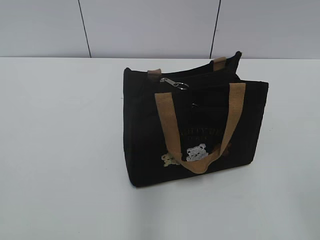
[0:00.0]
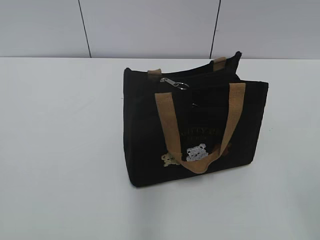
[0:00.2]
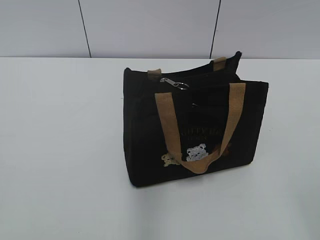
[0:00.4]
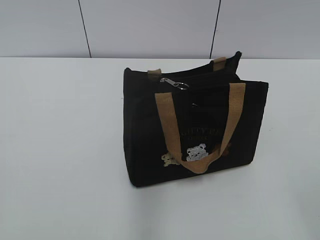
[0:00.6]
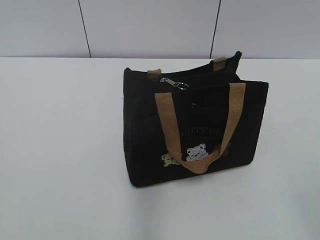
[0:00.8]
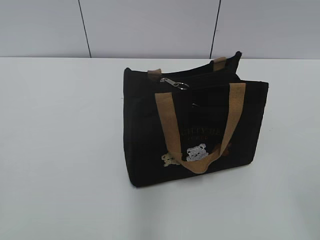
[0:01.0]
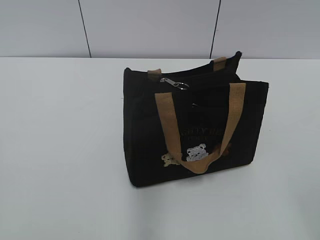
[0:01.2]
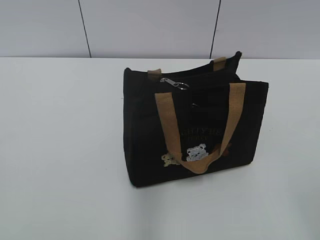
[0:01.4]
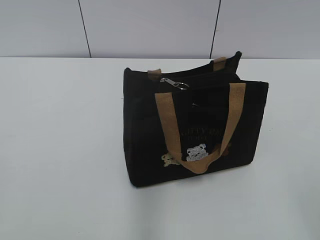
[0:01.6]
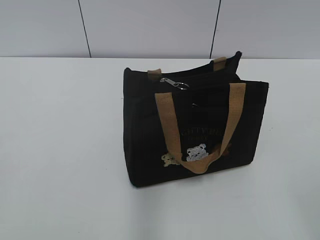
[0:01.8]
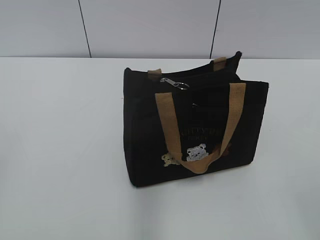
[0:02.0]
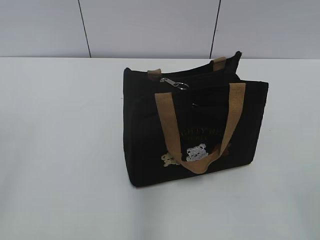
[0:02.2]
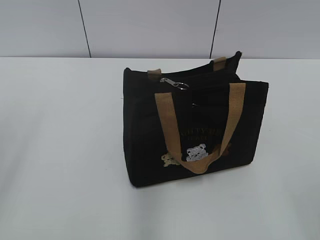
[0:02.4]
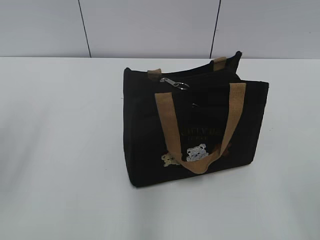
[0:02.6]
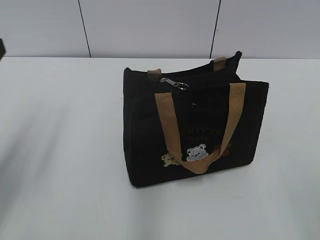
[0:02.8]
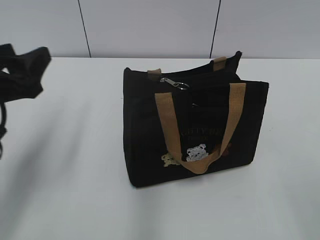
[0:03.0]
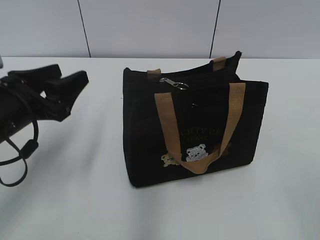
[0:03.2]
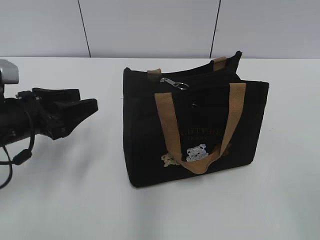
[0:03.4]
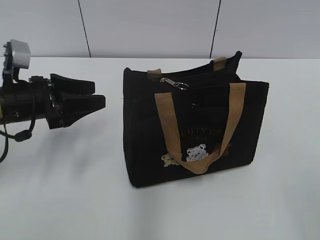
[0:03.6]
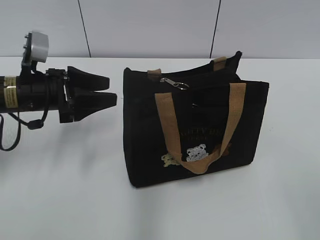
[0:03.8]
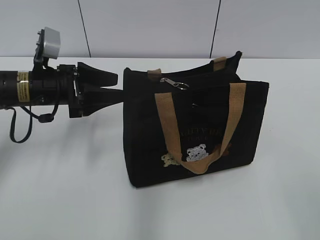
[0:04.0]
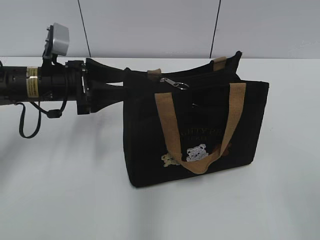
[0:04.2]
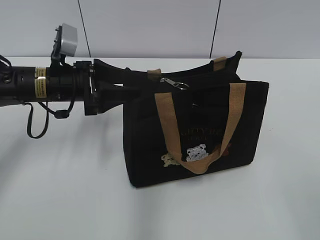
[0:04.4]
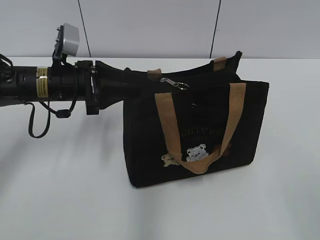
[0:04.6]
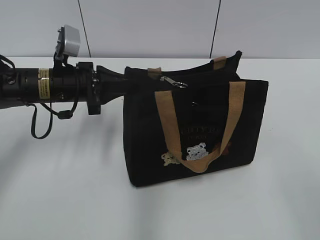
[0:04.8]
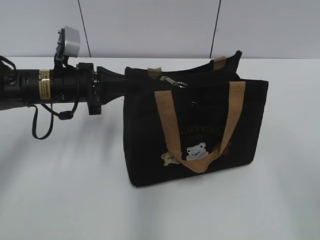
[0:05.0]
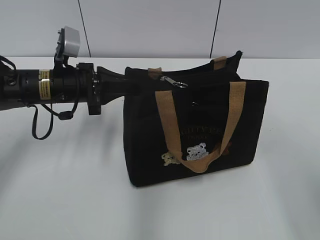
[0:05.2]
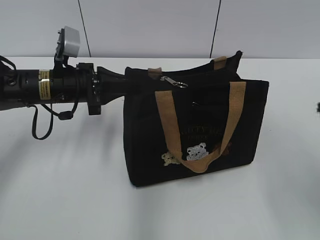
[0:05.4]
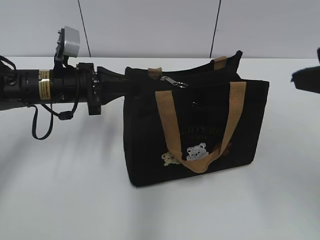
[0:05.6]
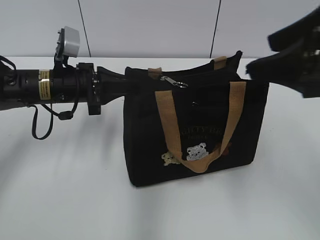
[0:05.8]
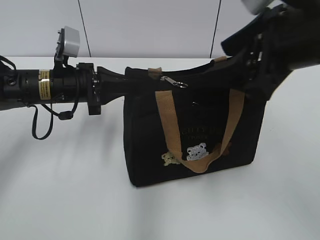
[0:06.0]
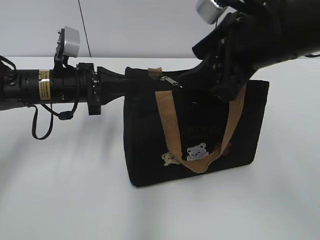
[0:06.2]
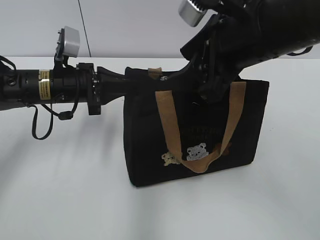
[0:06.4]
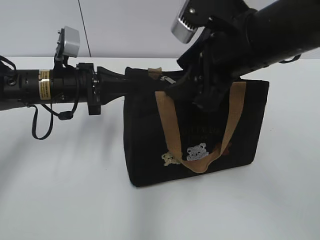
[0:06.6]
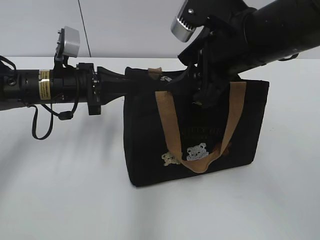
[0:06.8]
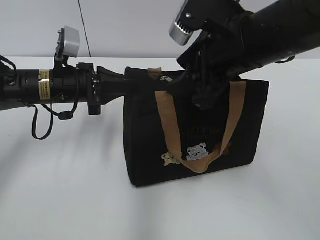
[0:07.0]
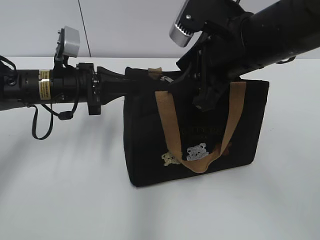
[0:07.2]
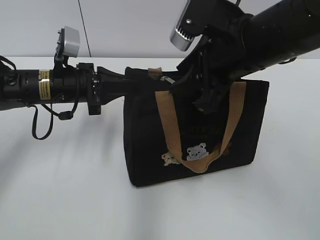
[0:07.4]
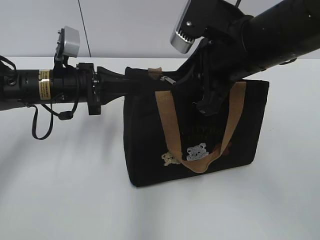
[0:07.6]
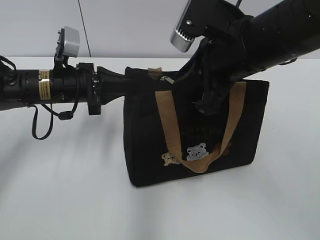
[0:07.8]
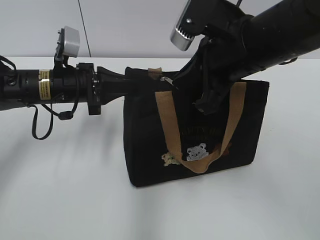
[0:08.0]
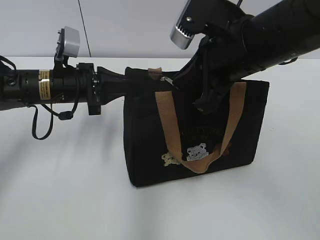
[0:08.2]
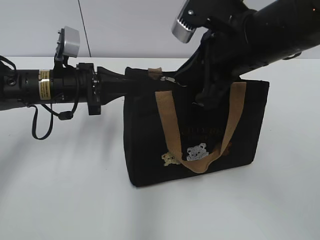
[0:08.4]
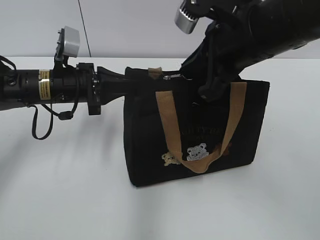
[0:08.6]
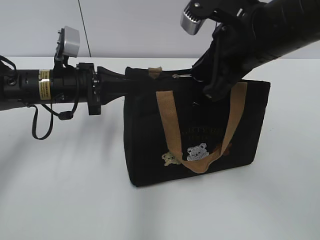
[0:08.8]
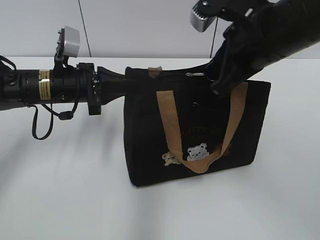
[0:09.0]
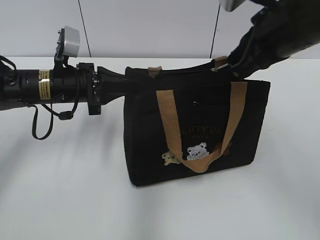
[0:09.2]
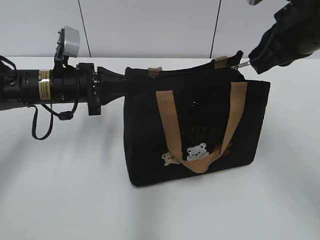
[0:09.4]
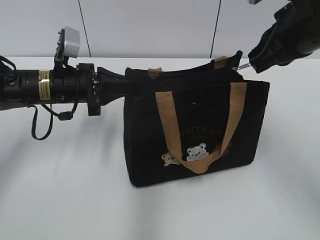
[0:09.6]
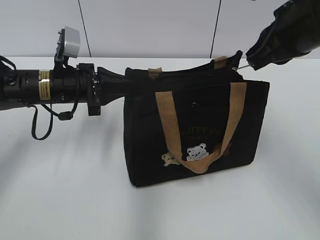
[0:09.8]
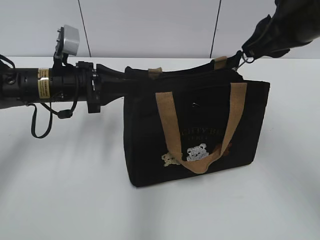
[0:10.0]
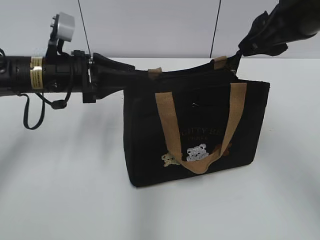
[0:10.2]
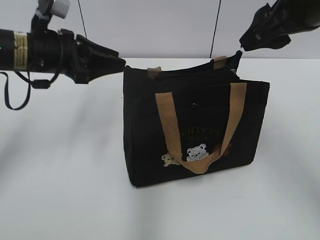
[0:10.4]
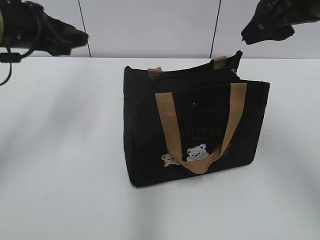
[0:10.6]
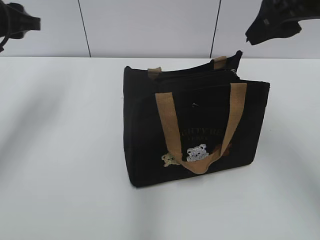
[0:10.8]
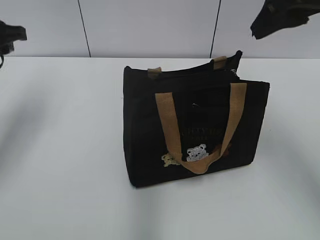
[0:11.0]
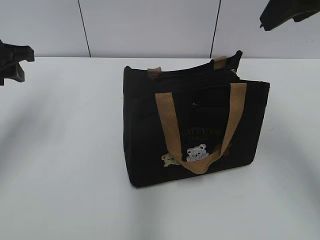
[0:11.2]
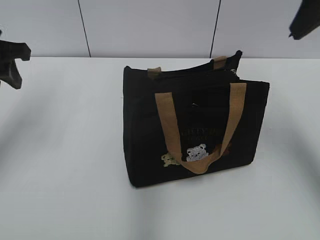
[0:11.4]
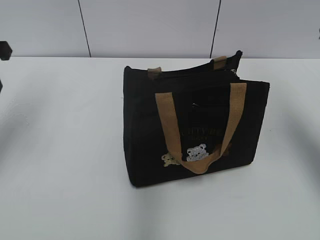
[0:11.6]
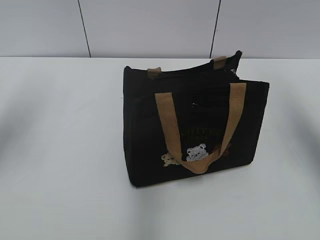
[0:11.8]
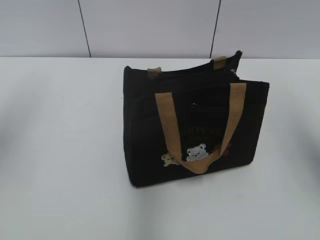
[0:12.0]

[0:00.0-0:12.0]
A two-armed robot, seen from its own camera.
Step, 0.0 to 10.0 s: Pull open the zipper with your right hand.
1.6 to 3.0 s: The left gripper shifts about 20 cm forward.
3.0 to 4.4 s: The left gripper shifts roughly 15 cm forward, downward and to the right.
4.4 to 6.0 s: The right gripper moves forward and to the left, about 25 cm, while the left gripper closes.
6.0 to 7.6 s: The right gripper shifts about 5 cm to the left, and closes up.
7.6 to 9.0 s: The right gripper closes.
9.0 to 10.4 s: The left gripper travels upward by about 5 cm, and opens. Meanwhile the right gripper shifts about 5 cm to the right, and opens.
10.4 to 12.0 s: The left gripper moves upward, to the left and backward, about 20 cm, while the right gripper travels to the right and backward by about 10 cm.

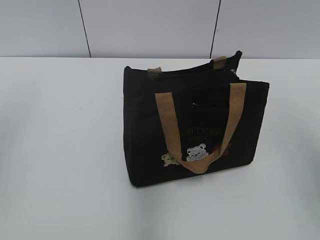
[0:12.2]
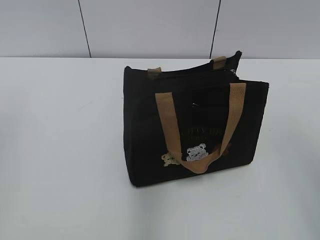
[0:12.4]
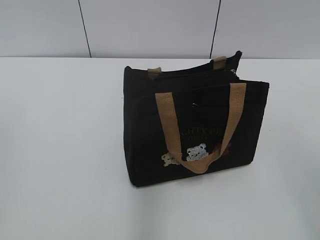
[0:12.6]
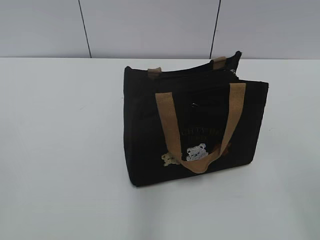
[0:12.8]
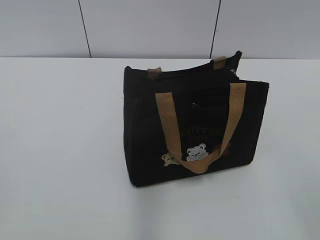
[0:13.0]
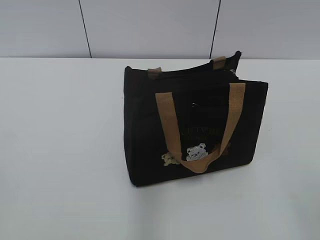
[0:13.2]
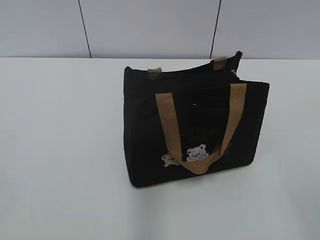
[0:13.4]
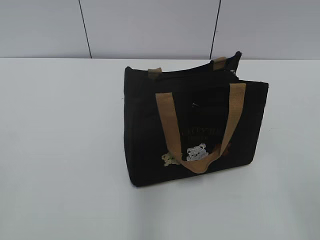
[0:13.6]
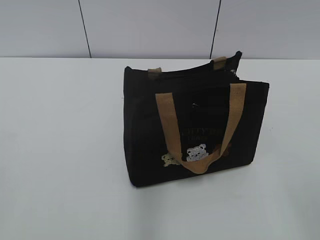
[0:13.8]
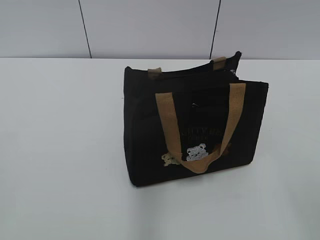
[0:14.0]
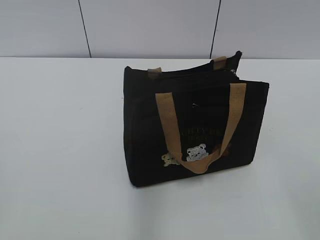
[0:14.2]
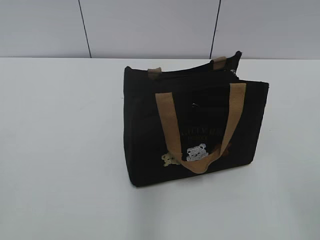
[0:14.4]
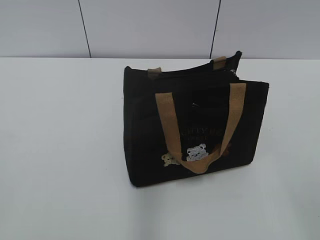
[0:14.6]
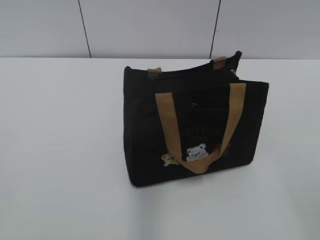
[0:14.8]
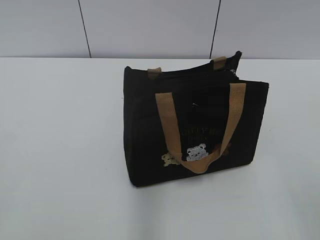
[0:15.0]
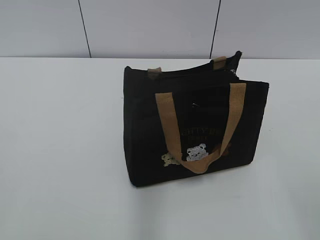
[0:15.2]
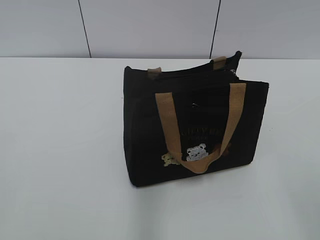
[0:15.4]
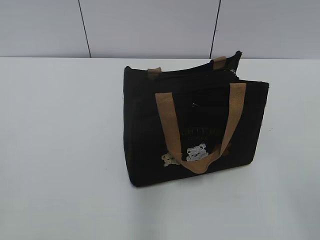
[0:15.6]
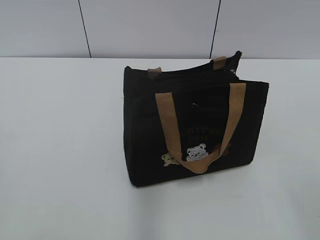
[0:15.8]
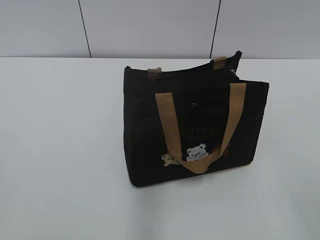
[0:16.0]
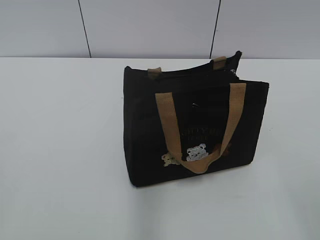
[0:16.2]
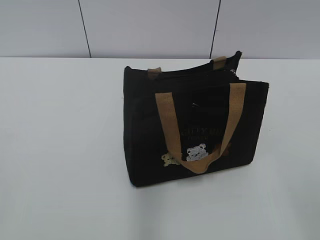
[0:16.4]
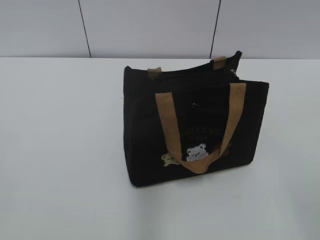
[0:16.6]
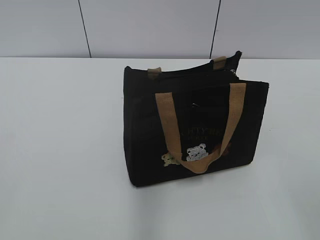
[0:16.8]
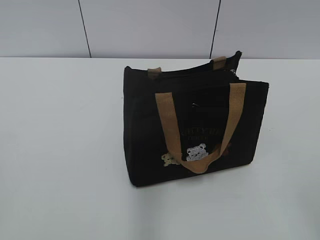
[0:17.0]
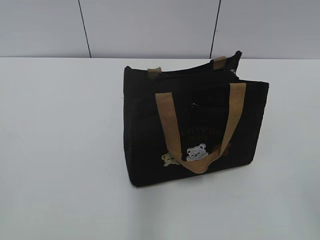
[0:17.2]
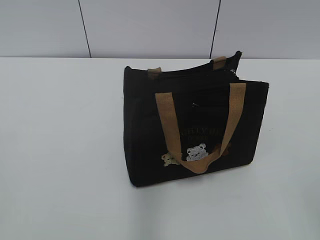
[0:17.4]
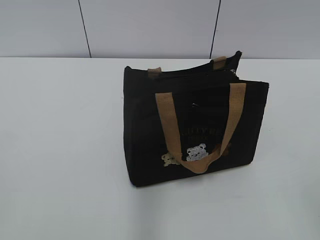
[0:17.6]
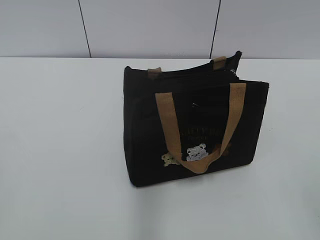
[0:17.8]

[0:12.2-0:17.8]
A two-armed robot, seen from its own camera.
12.2 to 13.6 s: The right gripper is displaced backward and downward by roughly 20 cm; the left gripper goes about 20 cm backward.
15.0 to 16.4 s: Neither gripper changes place.

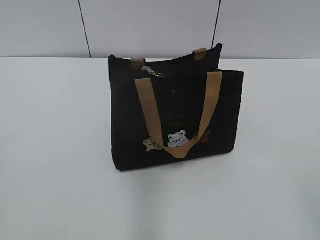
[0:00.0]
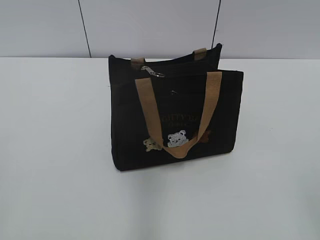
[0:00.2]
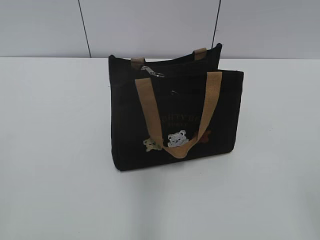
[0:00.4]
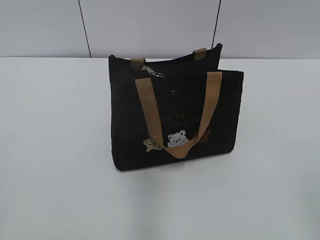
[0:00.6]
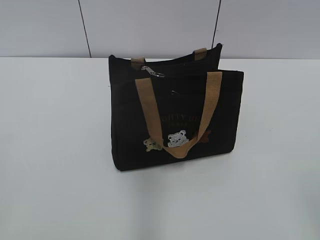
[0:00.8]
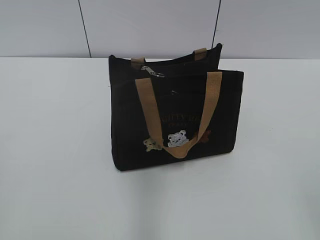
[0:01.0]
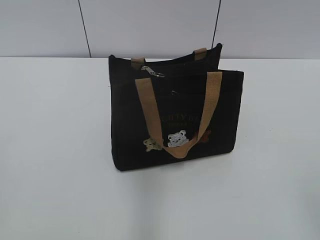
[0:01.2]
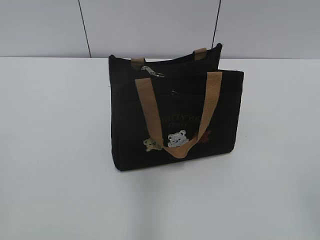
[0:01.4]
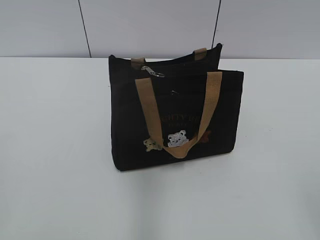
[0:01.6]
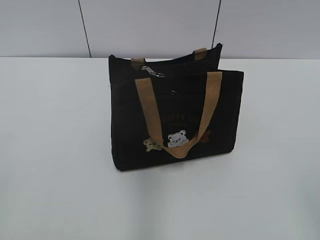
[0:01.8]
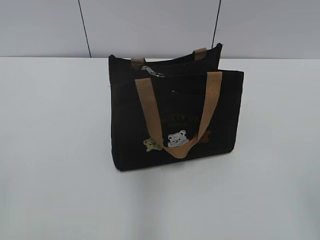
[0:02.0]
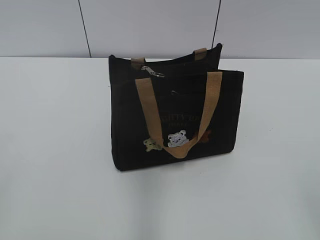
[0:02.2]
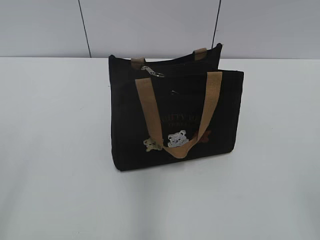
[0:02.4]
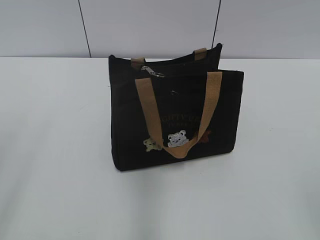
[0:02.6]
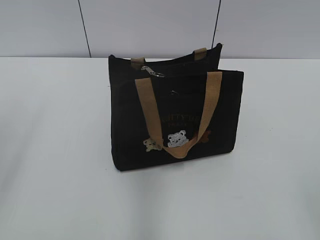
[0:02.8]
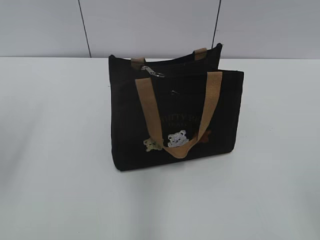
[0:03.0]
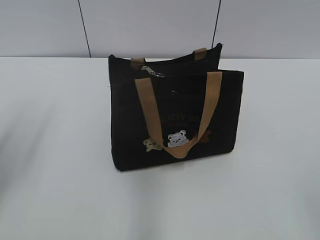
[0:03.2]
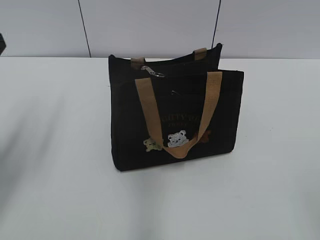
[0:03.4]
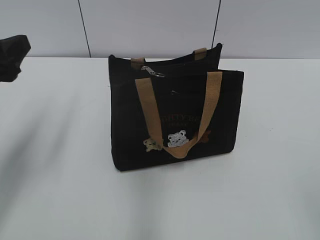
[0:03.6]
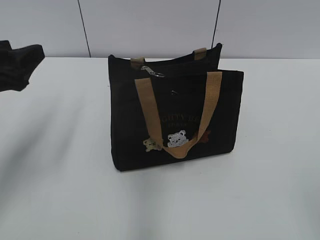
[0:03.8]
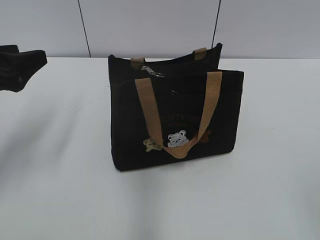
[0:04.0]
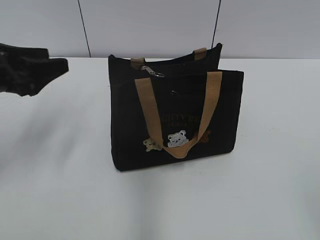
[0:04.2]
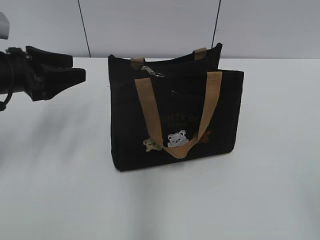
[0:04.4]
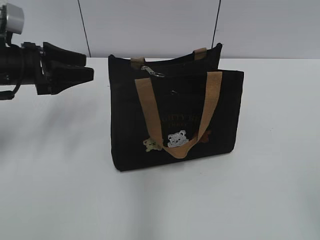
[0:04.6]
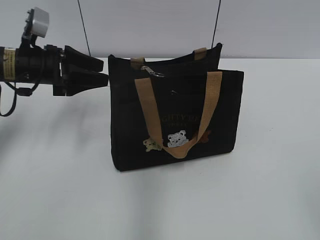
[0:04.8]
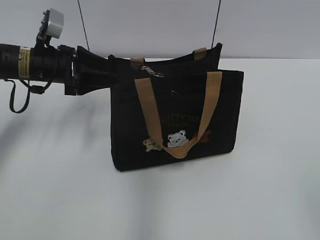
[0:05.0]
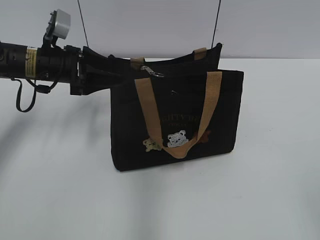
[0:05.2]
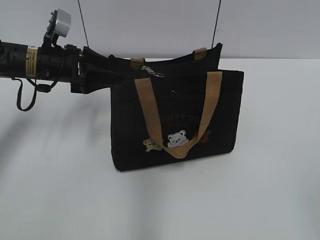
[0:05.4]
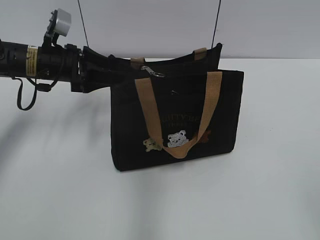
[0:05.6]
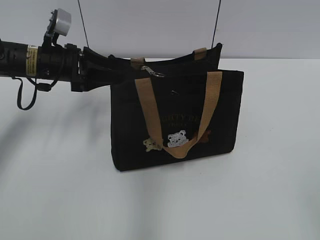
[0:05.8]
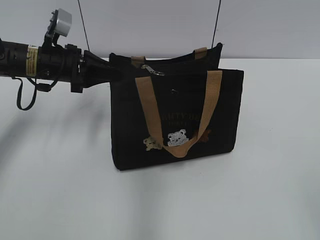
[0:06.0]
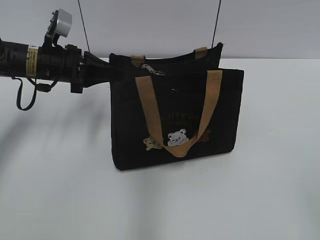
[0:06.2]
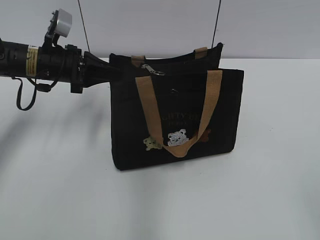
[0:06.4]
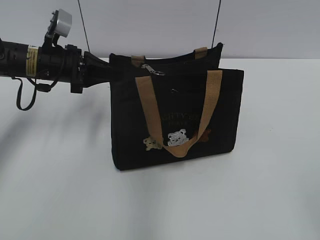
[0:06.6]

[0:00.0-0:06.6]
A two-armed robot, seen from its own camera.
1.6 to 3.2 s: The left gripper goes about 20 cm forward, and opens up.
3.2 to 5.0 s: The left gripper moves forward, downward and to the right, about 20 cm.
5.0 to 6.6 s: The left gripper closes.
